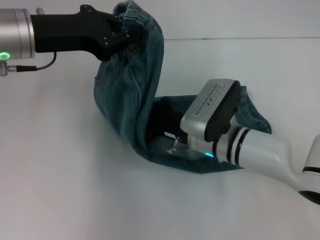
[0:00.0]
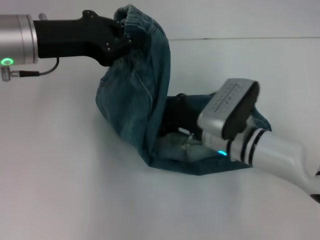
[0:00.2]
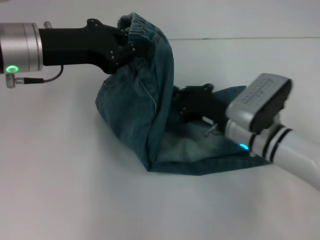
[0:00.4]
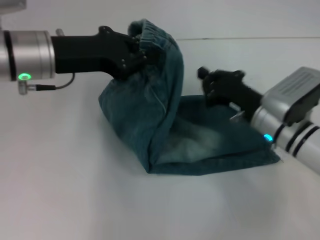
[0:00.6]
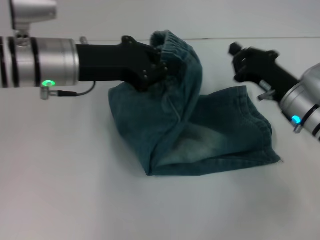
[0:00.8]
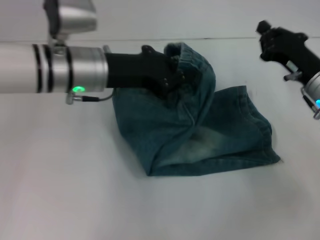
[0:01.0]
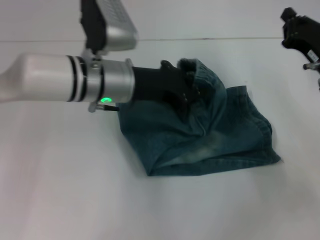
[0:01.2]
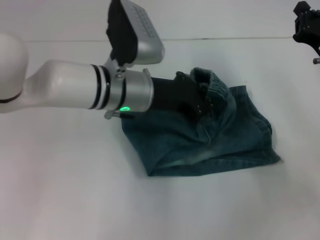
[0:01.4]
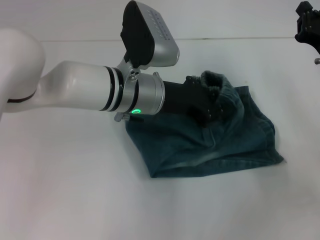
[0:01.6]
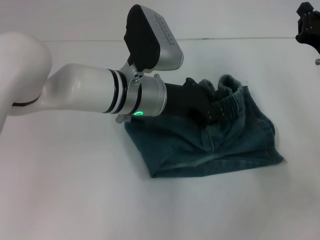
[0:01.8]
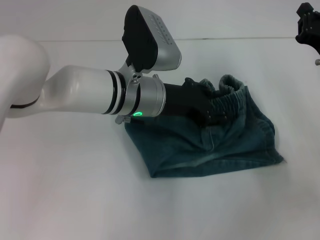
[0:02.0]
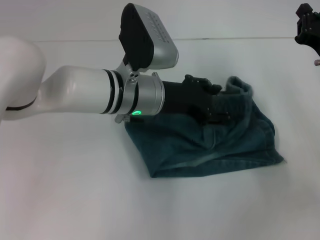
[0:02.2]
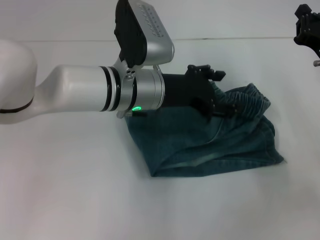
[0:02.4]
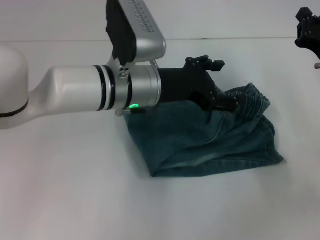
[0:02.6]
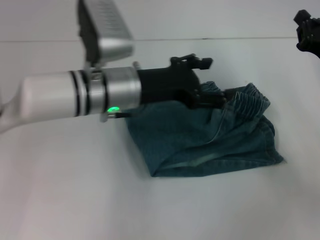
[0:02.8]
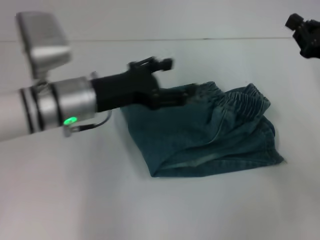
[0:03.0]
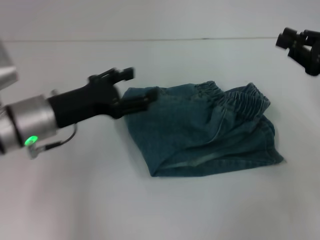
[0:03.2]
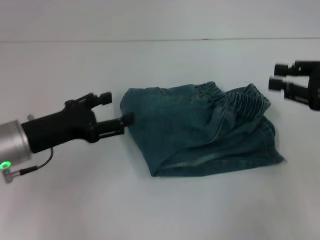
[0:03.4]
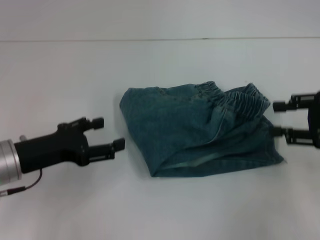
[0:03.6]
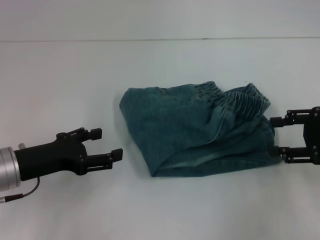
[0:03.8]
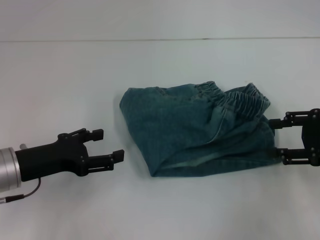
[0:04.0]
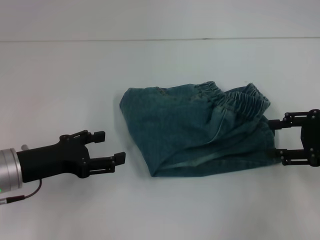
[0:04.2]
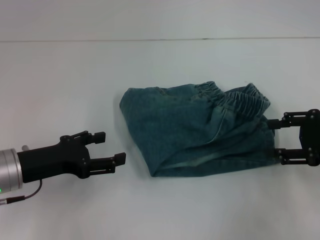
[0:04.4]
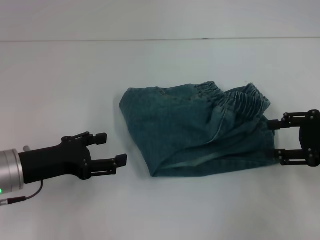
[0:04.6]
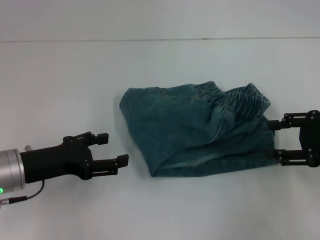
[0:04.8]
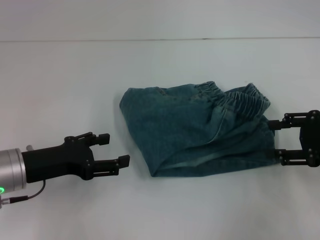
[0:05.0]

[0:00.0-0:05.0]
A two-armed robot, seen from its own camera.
Step, 0:00.4 to 0:02.6: Fold to the right with your left hand.
0:00.0 to 0:01.6: The right gripper shifts approximately 20 cm to the right. Meanwhile the left gripper shifts approximately 15 cm to the right and downward.
0:01.6 to 0:03.4: The right gripper is displaced upward by some 5 cm, while the left gripper is displaced to the left and backward by some 20 cm, and opens its fingers.
0:03.4 to 0:05.0: The right gripper opens its fingers.
